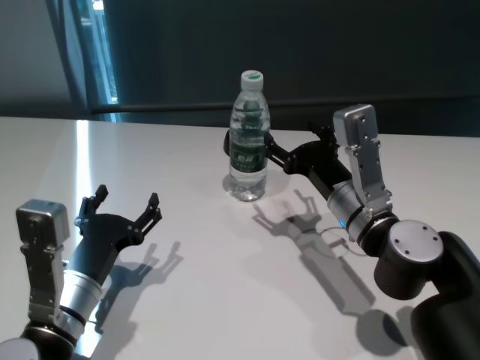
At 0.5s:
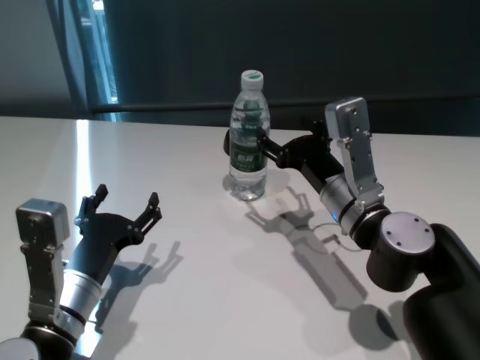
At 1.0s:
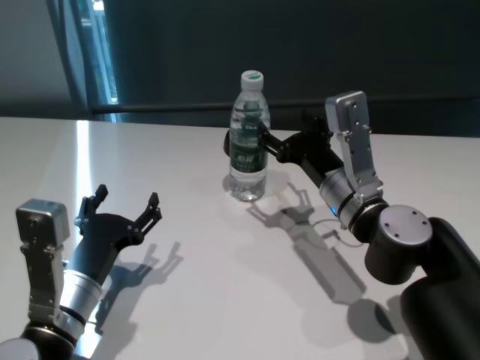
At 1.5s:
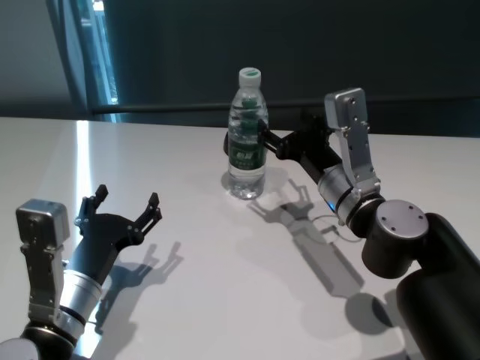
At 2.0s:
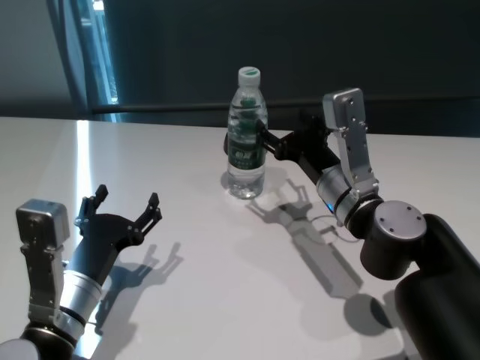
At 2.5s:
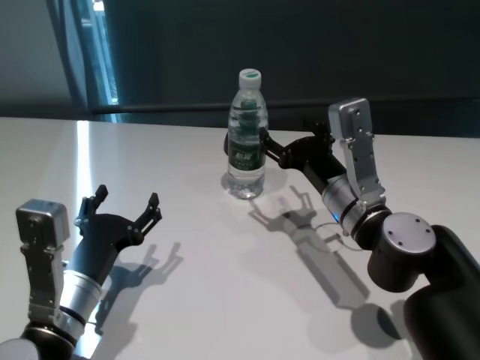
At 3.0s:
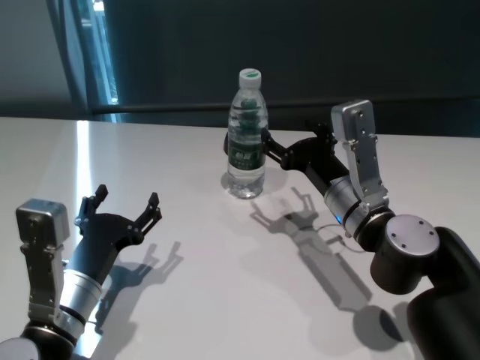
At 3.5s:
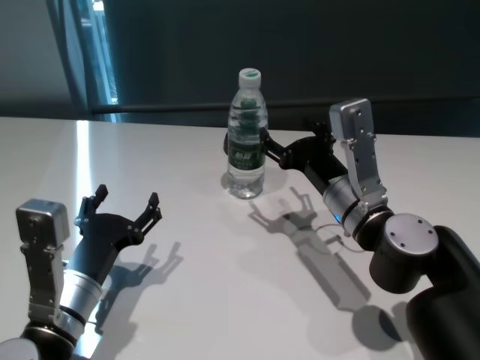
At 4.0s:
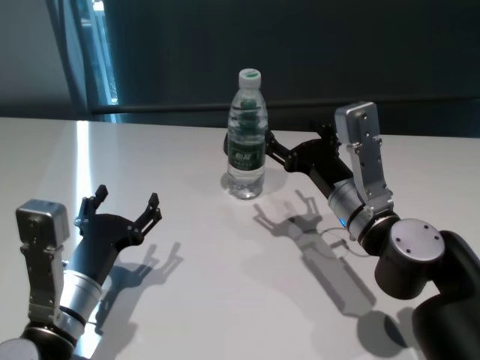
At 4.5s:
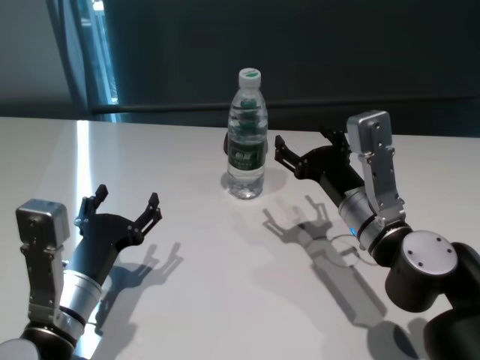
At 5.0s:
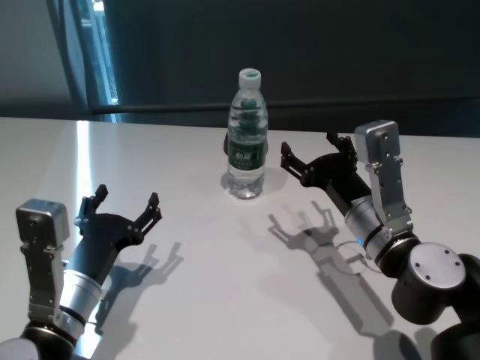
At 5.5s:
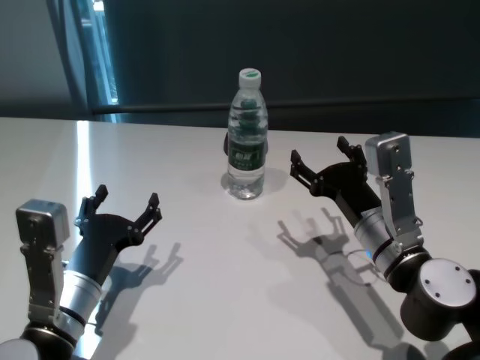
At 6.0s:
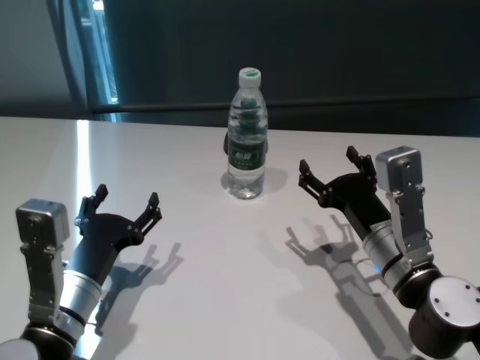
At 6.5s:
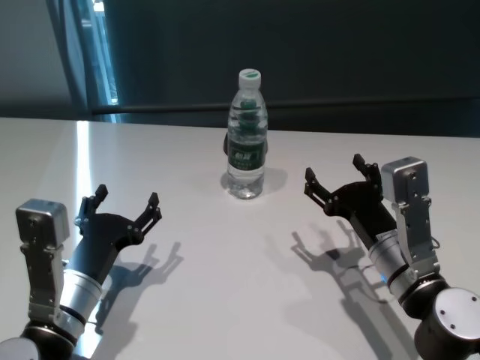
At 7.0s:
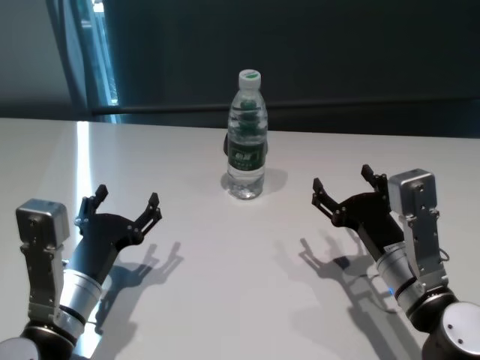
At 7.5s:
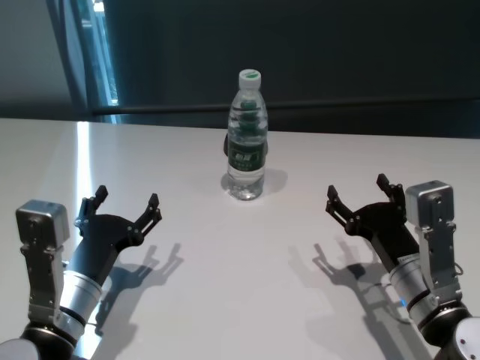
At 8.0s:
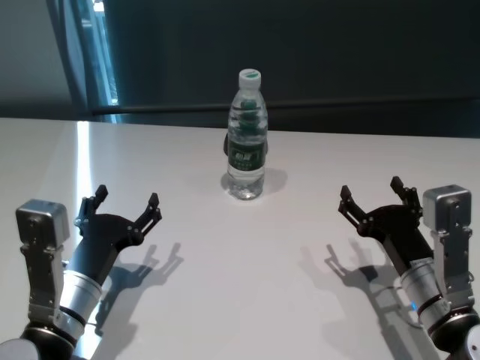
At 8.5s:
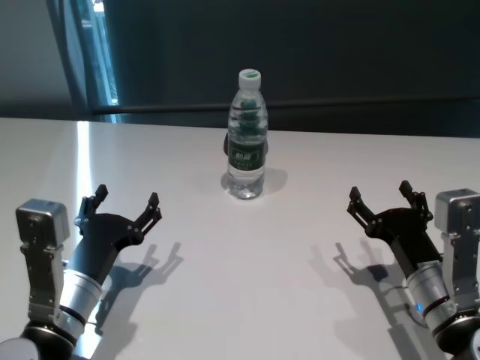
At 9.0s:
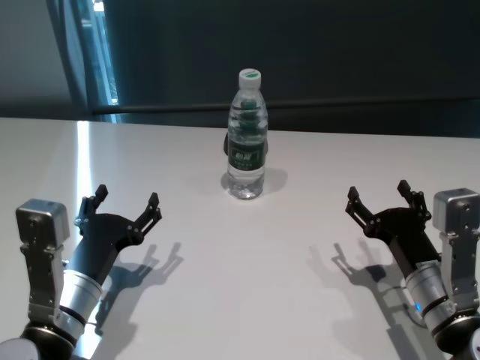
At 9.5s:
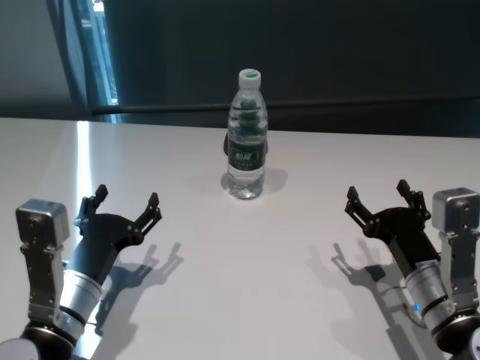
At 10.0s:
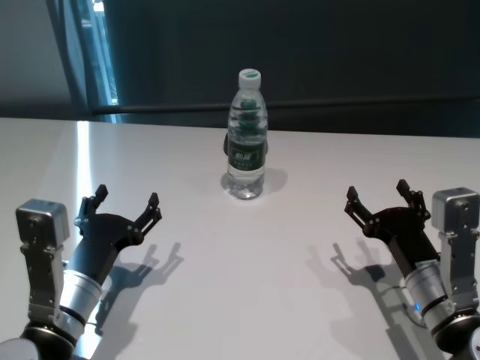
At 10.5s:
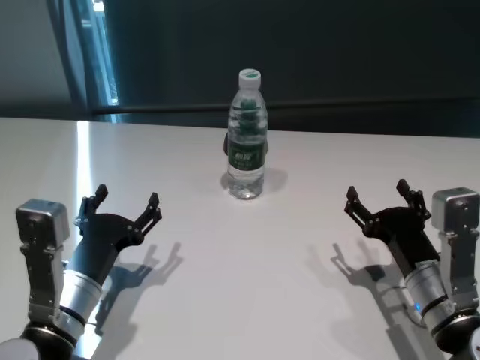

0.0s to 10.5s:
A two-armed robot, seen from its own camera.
Task of the whole recording: return to a safe position after touching an obstacle with your arm on the white table.
Step, 0.0s to 4.0s: Touch the bottle with right gripper.
